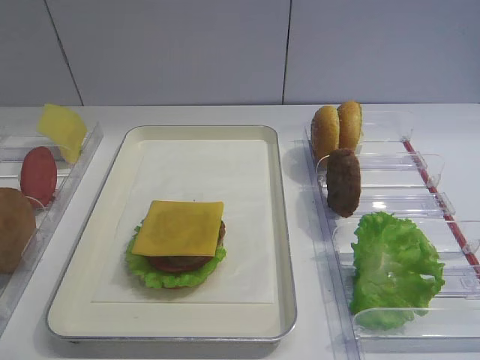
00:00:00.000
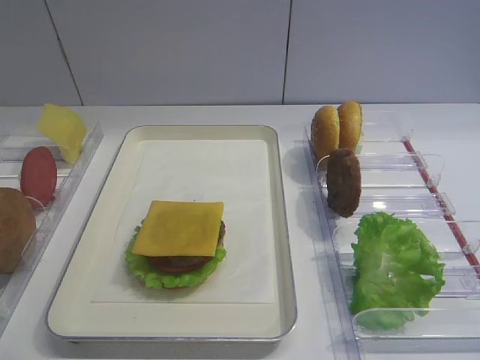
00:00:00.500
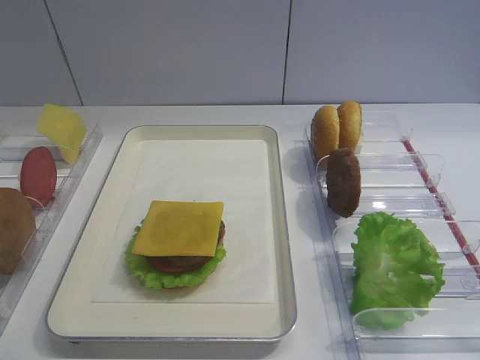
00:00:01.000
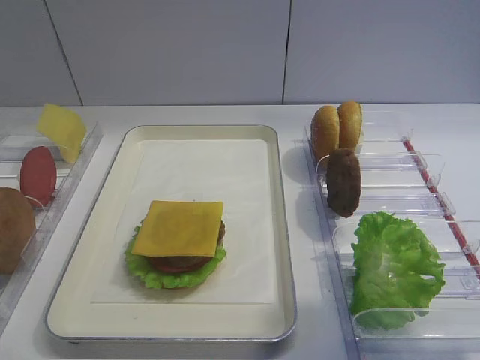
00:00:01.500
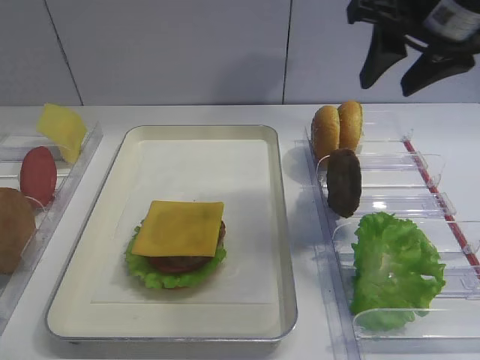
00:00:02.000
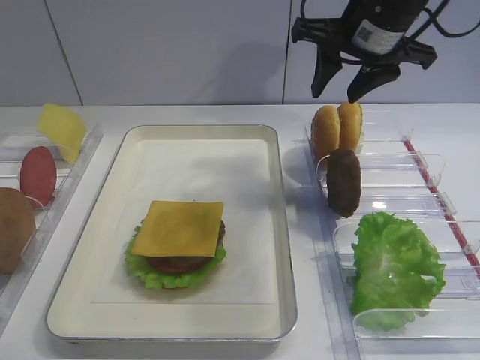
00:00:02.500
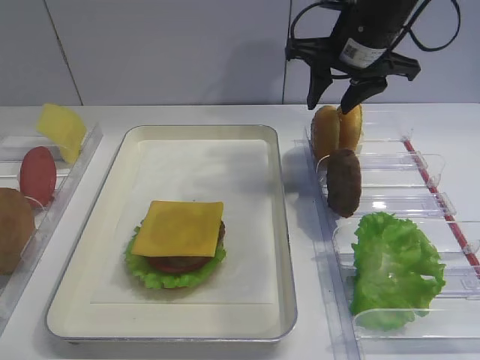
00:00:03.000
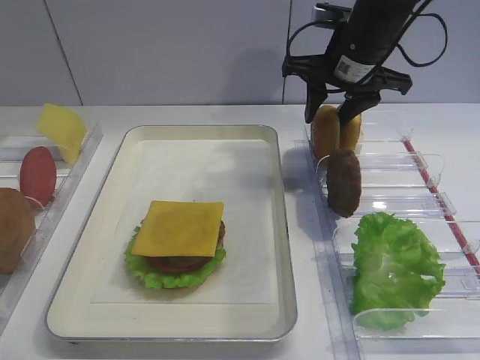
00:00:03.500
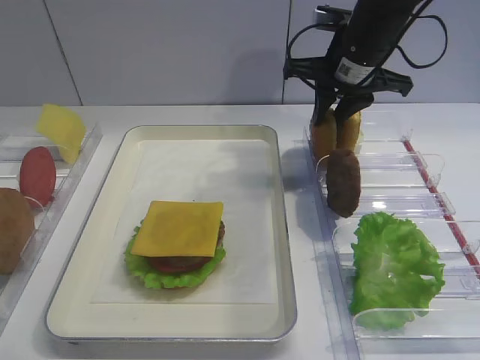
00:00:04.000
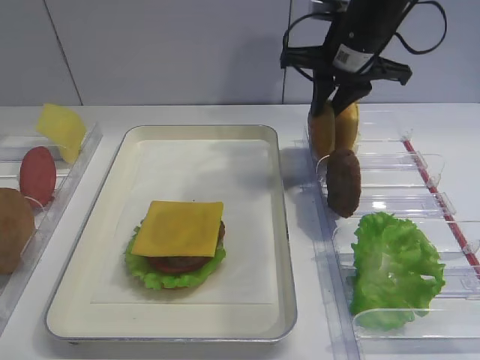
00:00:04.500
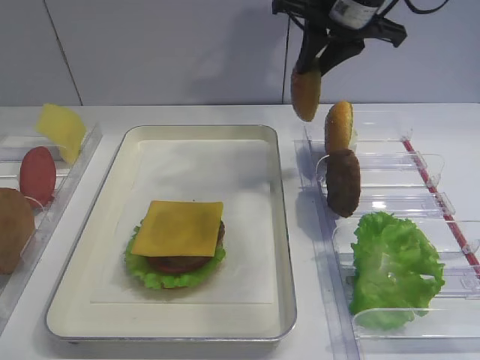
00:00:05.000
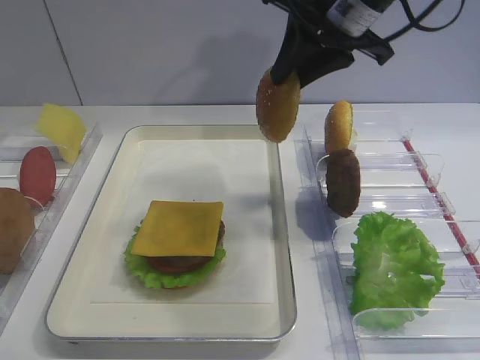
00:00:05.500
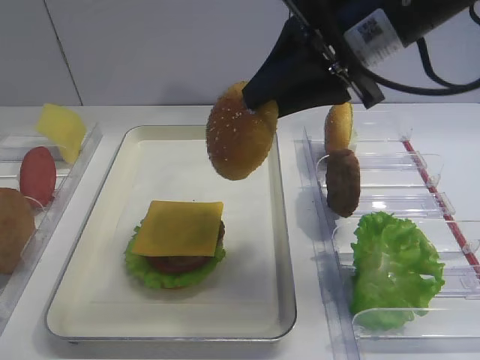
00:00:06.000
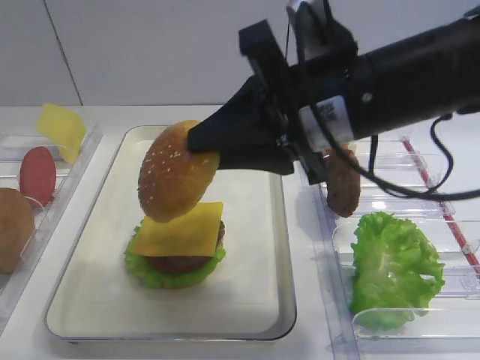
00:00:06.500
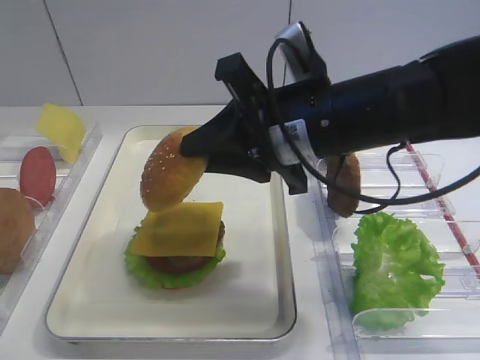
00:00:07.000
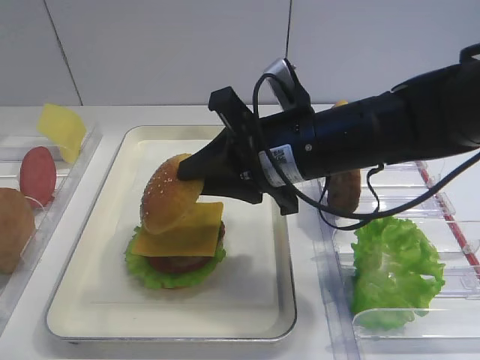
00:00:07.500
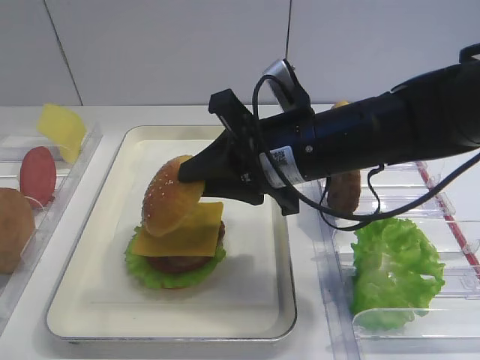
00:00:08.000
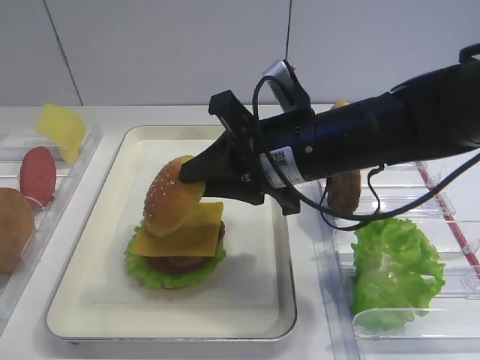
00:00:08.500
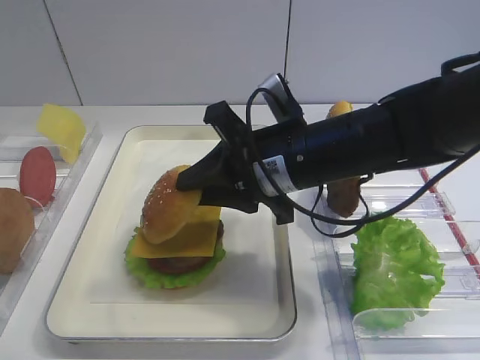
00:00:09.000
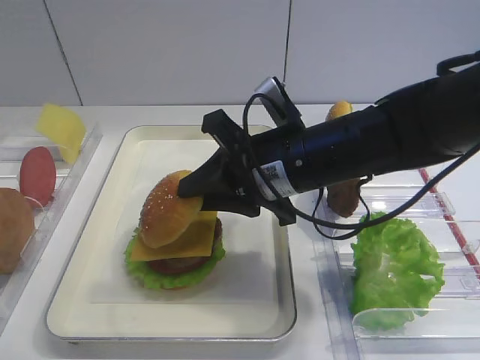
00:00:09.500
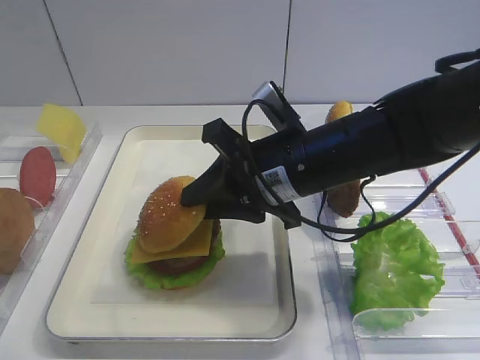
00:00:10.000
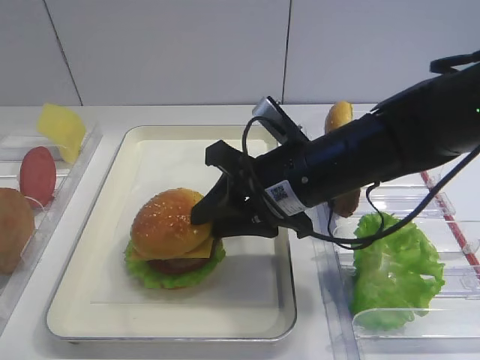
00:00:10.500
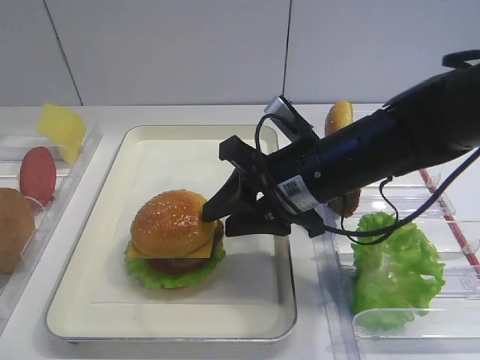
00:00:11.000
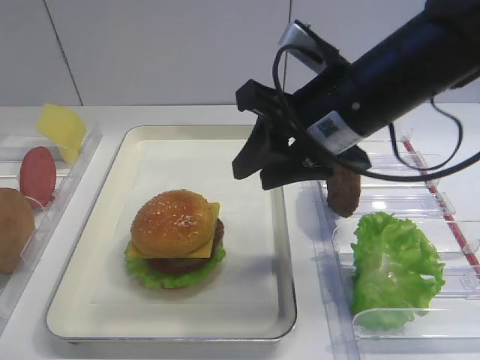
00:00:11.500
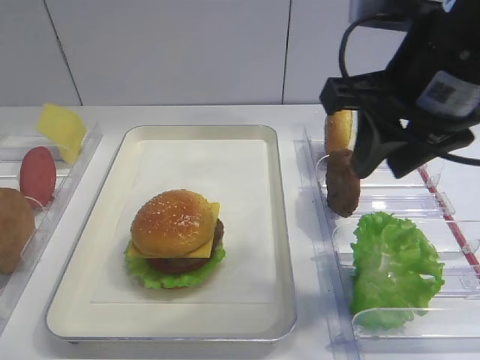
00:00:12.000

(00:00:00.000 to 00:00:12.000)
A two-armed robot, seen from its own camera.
Step, 00:00:00.000 - 00:00:04.500: Pick up the hamburger lid with the right gripper.
Step, 00:00:05.000 - 00:00:11.000: Place the hamburger lid on the cheese slice with the right gripper.
00:00:02.000 - 00:00:04.000: The right gripper moves forward and downward, roughly 15 cm, and closes.
00:00:04.000 - 00:00:06.000: The right gripper heads backward and upward, covering about 15 cm.
00:00:06.000 - 00:00:08.000: The right gripper travels downward and to the left by about 15 cm.
00:00:08.000 - 00:00:10.000: The grippers make only small movements.
00:00:10.000 - 00:00:12.000: The right gripper goes about 15 cm upward and to the right, and opens its fingers.

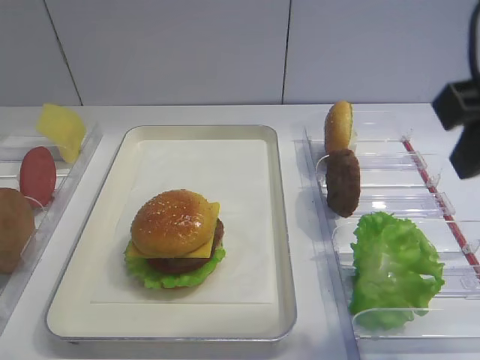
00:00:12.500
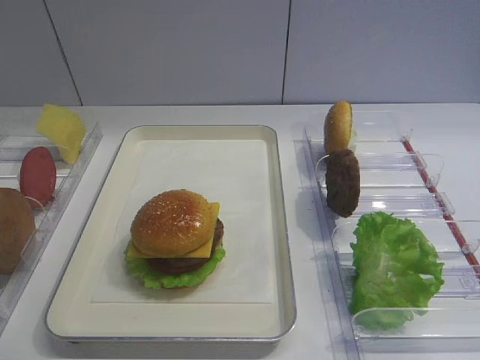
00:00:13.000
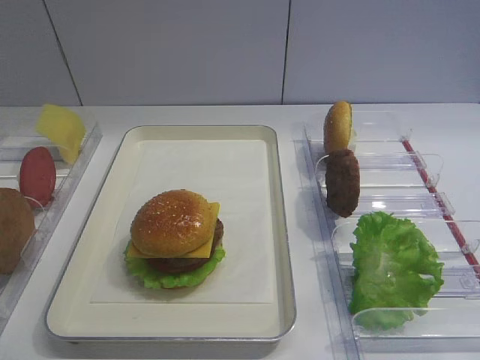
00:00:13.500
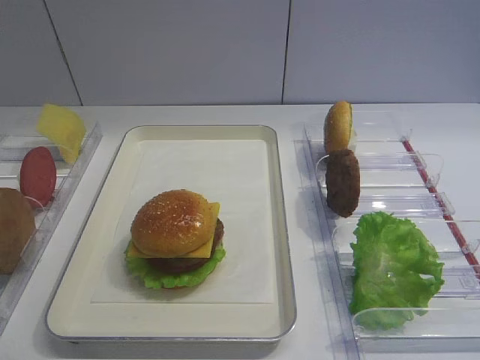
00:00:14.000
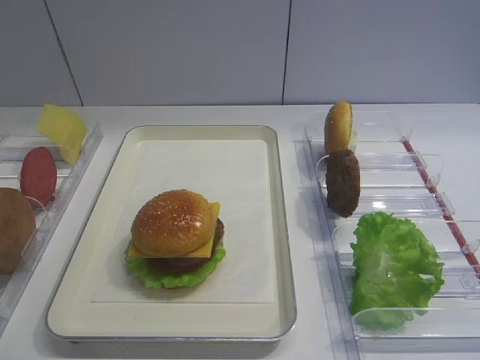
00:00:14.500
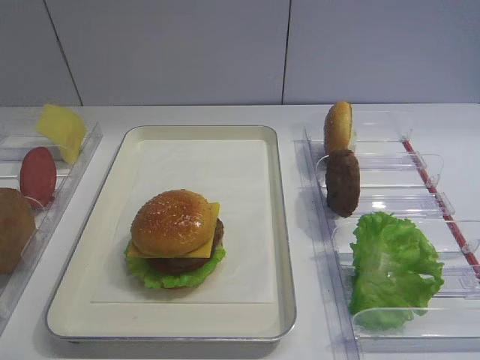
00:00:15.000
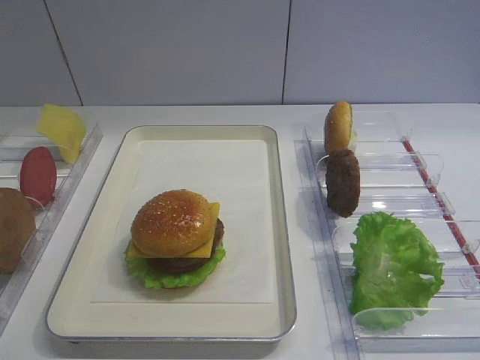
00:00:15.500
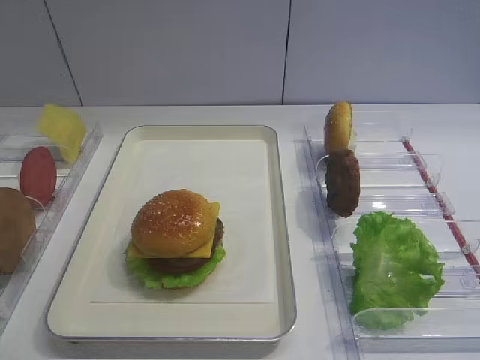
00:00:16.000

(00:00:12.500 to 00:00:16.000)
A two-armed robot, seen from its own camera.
00:00:12.500 - 00:00:14.500: The right gripper goes about 20 cm backward, downward and to the right.
00:00:14.500 - 00:00:16.000: The two grippers keep their place.

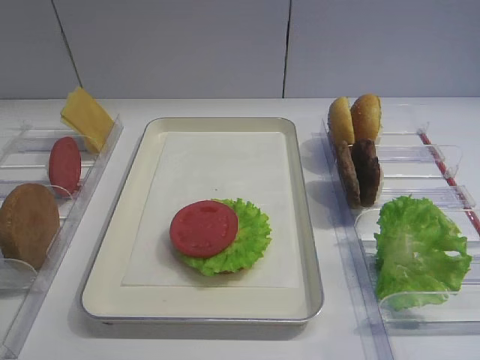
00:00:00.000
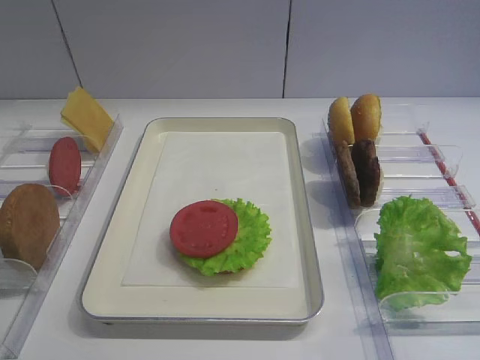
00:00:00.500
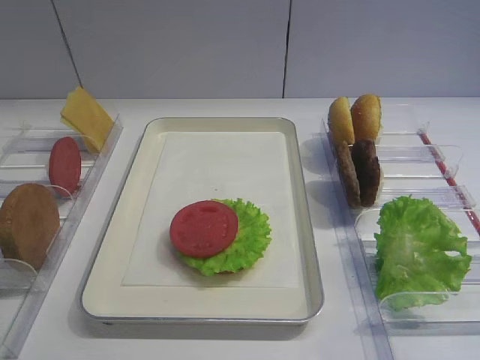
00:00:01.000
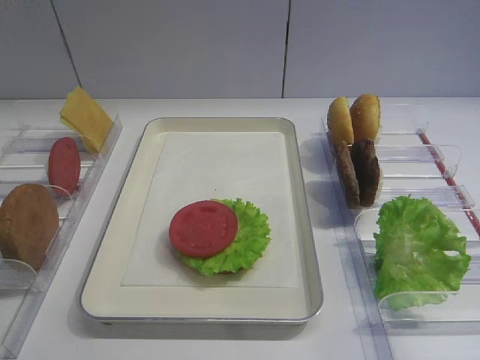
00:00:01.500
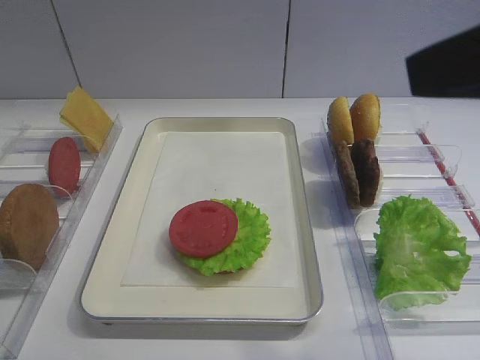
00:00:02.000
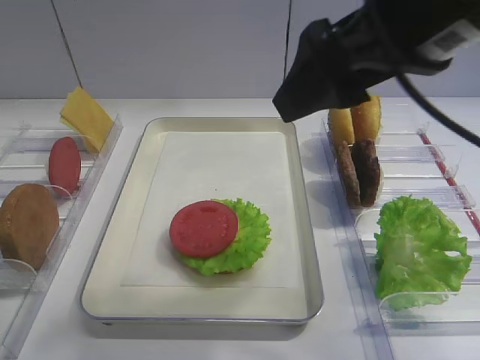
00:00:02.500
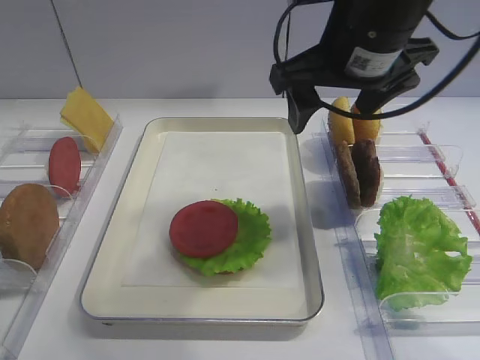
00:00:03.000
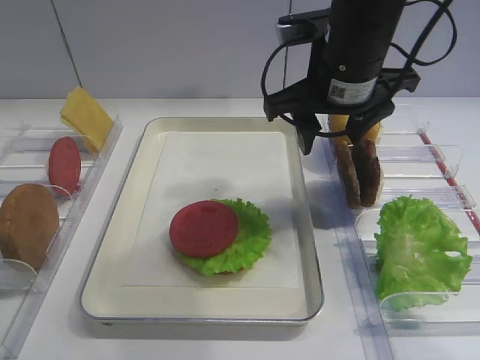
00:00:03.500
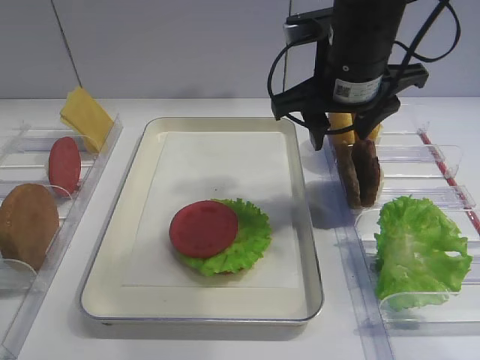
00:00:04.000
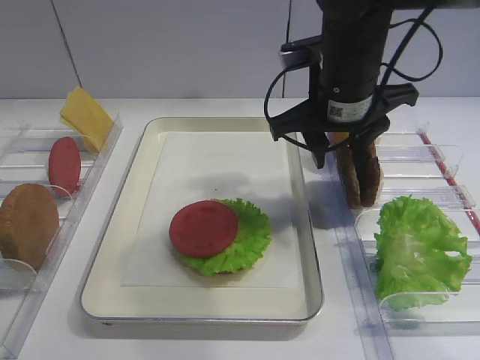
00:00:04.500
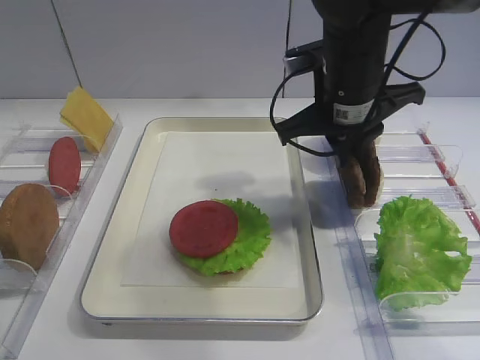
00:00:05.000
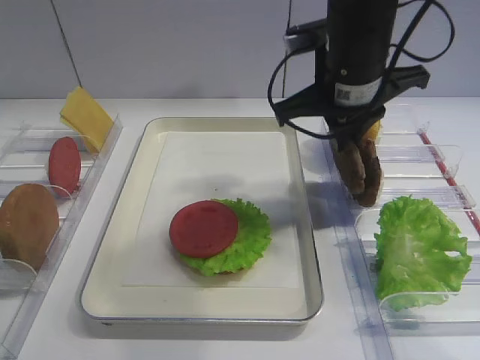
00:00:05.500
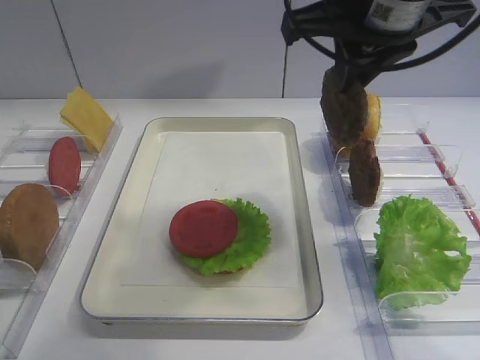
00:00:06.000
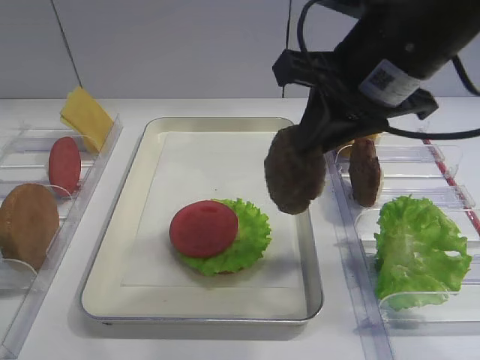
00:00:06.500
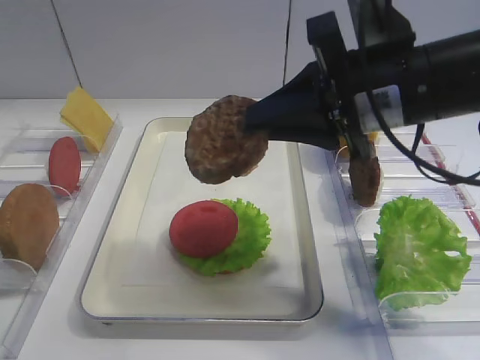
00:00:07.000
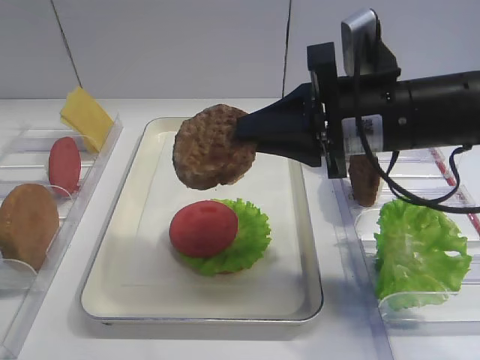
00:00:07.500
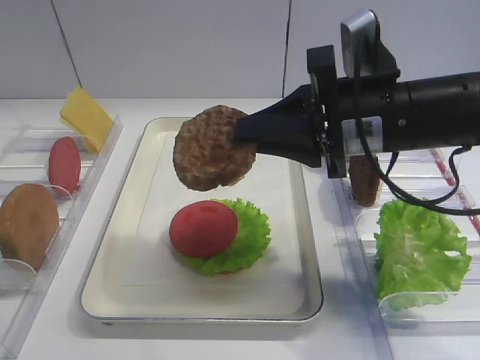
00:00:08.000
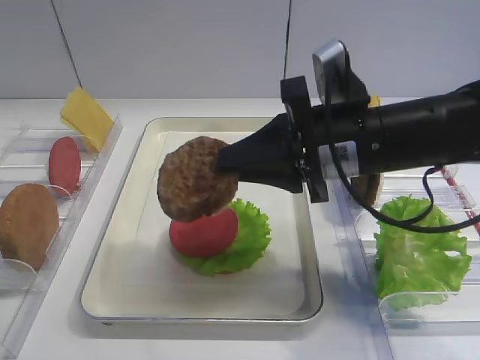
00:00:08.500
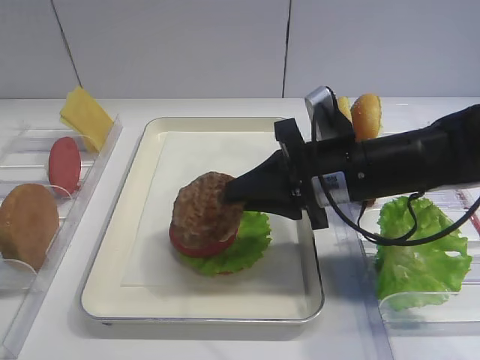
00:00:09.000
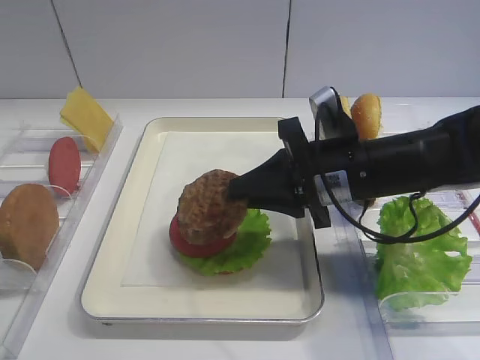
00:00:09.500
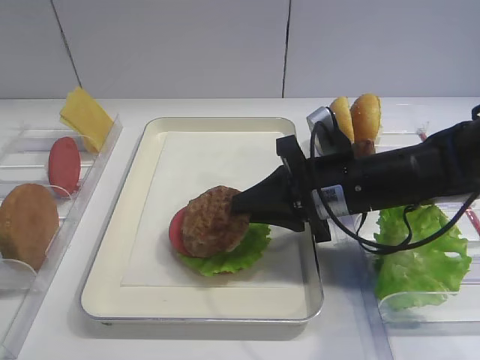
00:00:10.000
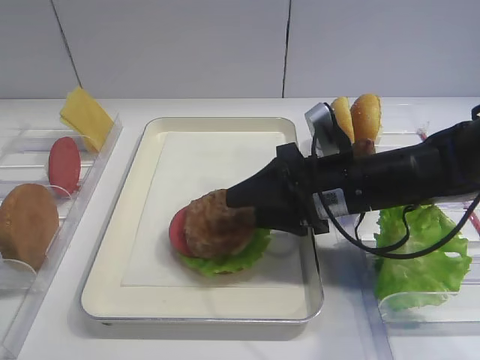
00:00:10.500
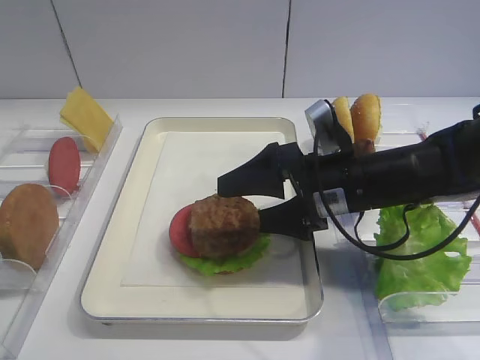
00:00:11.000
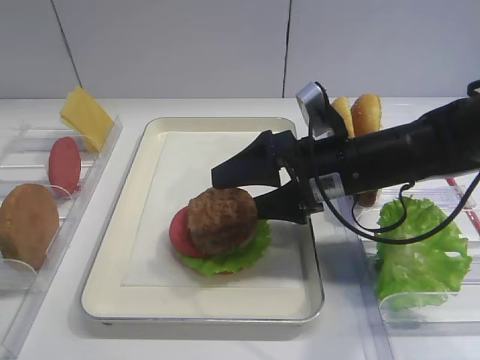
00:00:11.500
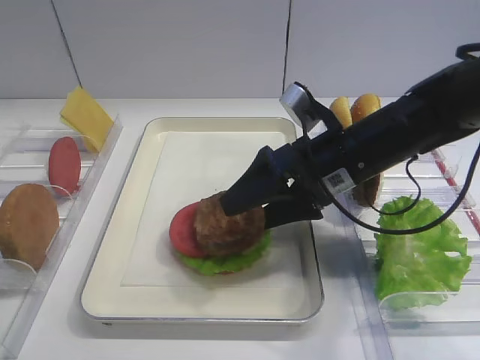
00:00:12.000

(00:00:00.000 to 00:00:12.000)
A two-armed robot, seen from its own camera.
Step, 00:00:00.000 - 00:00:05.500: Pick up the cutlet with the right gripper.
00:00:02.000 - 00:00:04.000: The right gripper shifts about 25 cm forward, downward and to the left, and closes.
00:00:04.000 - 00:00:06.000: The right gripper moves upward, some 10 cm, and closes its fingers.
00:00:06.000 - 00:00:08.000: The right gripper is displaced downward by some 10 cm.
00:00:08.000 - 00:00:10.000: The right gripper goes some 10 cm downward.
00:00:10.000 - 00:00:12.000: The right gripper opens.
